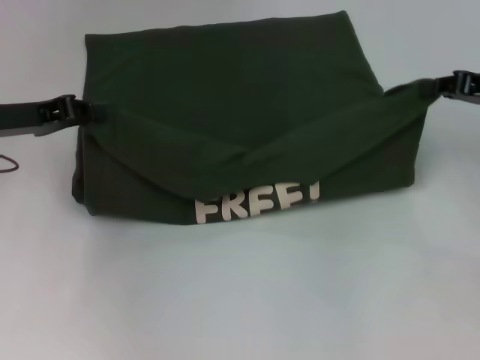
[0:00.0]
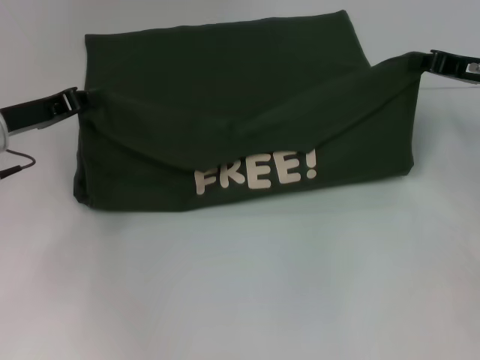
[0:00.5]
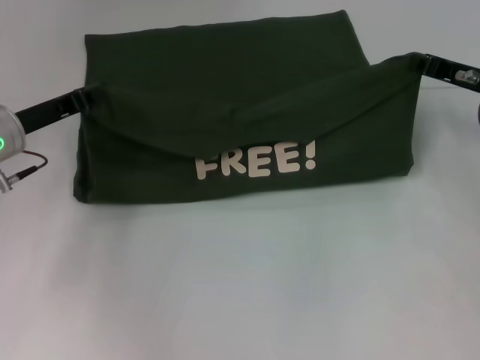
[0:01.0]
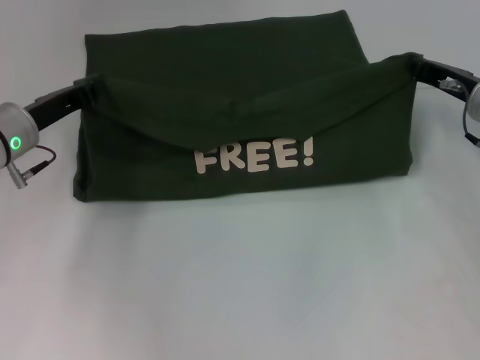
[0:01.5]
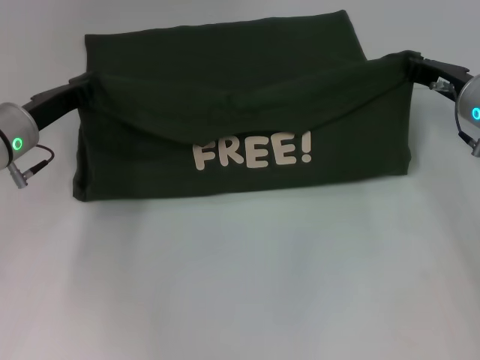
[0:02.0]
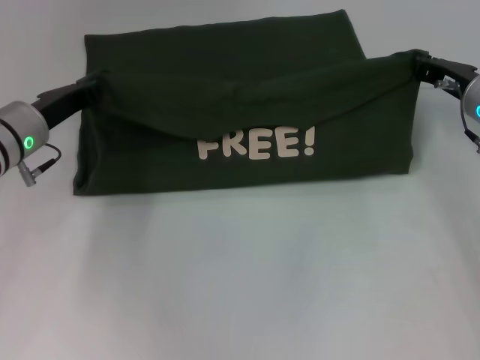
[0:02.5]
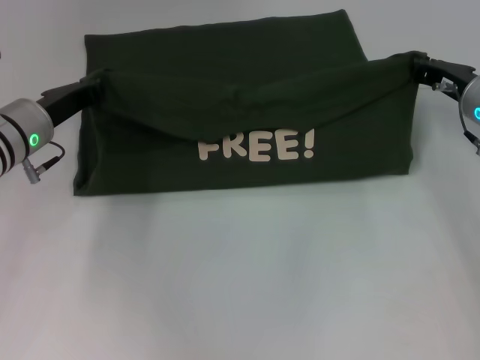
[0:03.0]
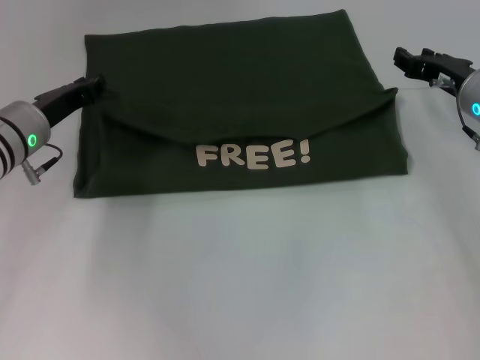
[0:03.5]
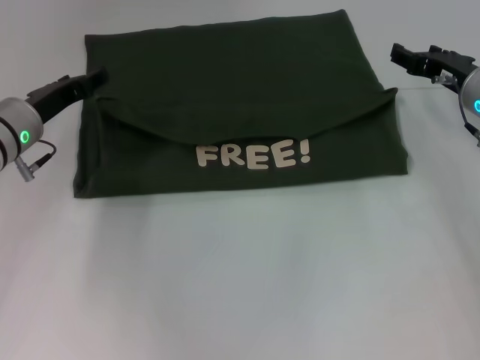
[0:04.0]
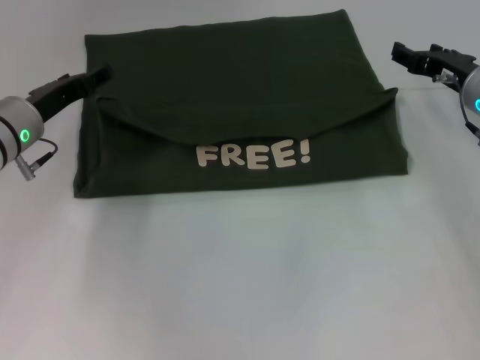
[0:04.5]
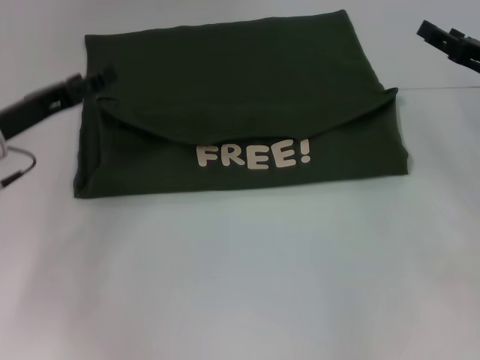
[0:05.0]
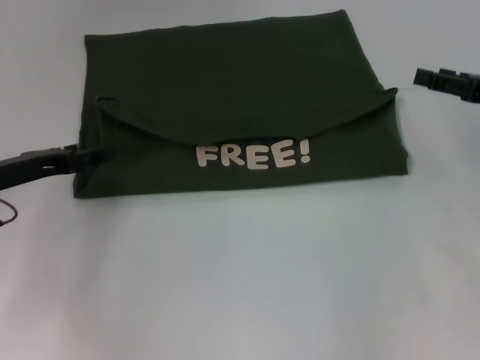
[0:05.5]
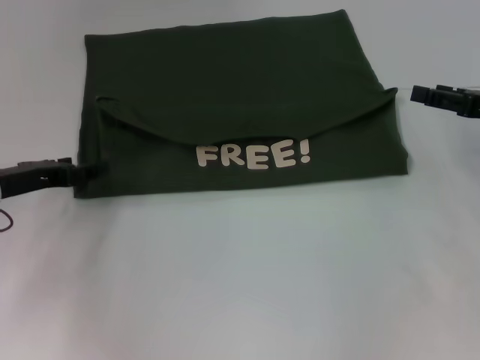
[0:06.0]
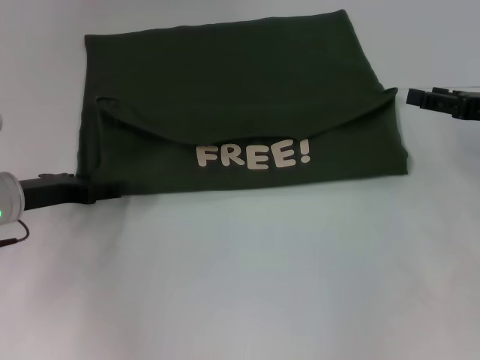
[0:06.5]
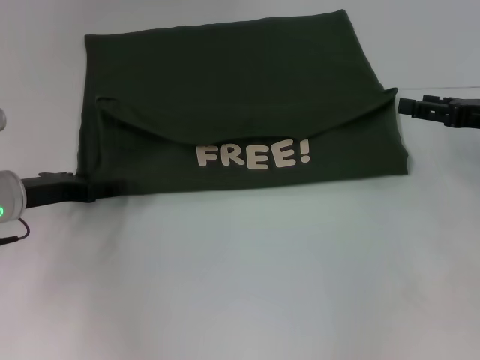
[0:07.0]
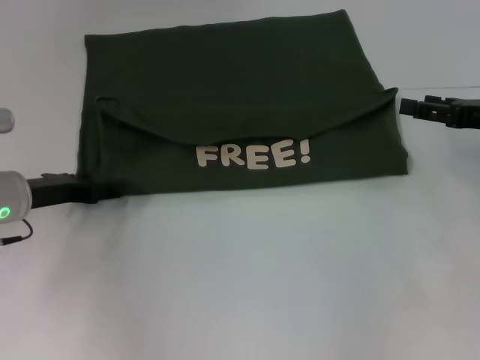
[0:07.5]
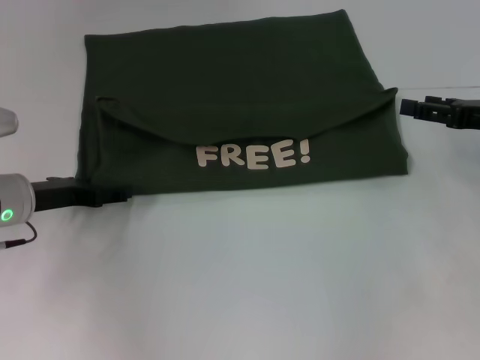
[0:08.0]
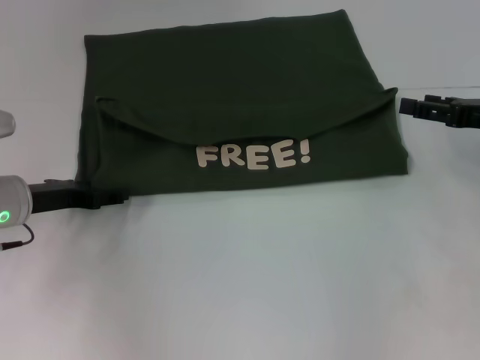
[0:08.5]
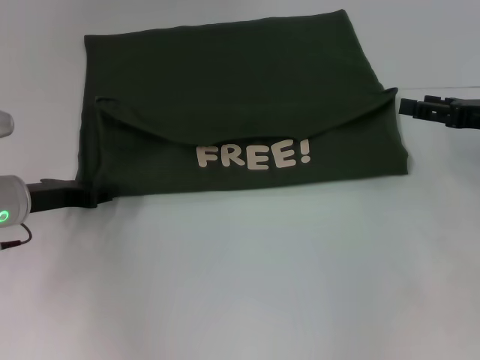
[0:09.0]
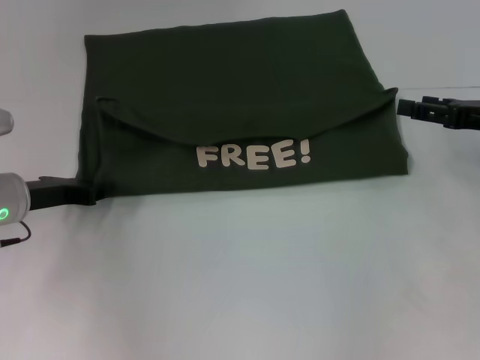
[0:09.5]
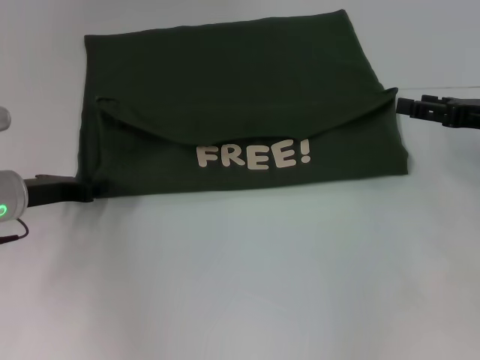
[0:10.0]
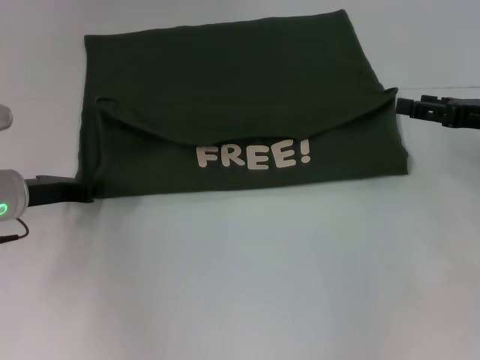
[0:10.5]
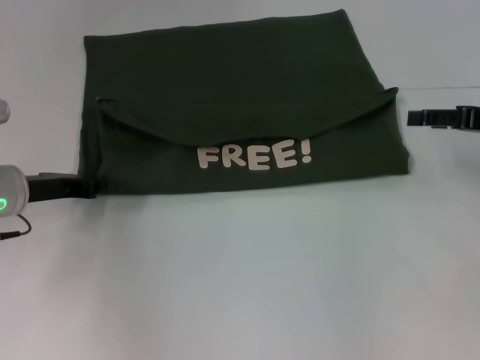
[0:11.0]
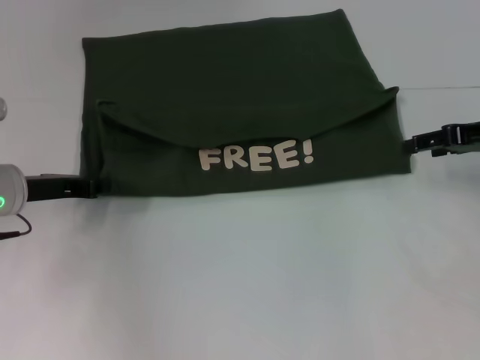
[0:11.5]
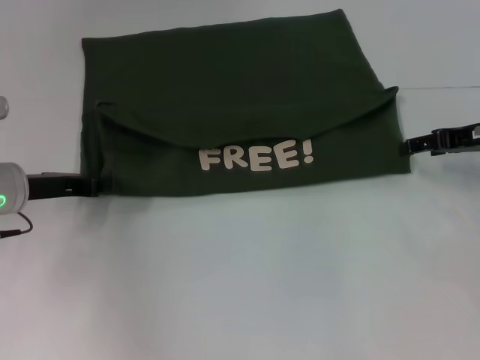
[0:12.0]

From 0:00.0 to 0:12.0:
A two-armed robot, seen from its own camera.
Step, from 0:00.0 to 0:03.5: Fold the clothes with your left hand.
Step, from 0:00.0 to 0:03.5: Fold the clothes with your right hand.
From 0:00.0 to 0:02.0: The left gripper is displaced downward by roughly 5 cm. Meanwhile the right gripper is displaced downward and to the left by about 10 cm.
From 0:02.0 to 0:04.0: The left gripper opens up; the right gripper opens its fingers.
From 0:04.0 to 0:06.0: The right gripper moves to the right and backward, roughly 10 cm, while the left gripper goes roughly 5 cm backward.
From 0:06.0 to 0:08.0: The grippers stay close to where they were, moving slightly.
From 0:08.0 to 0:10.0: The left gripper closes up.

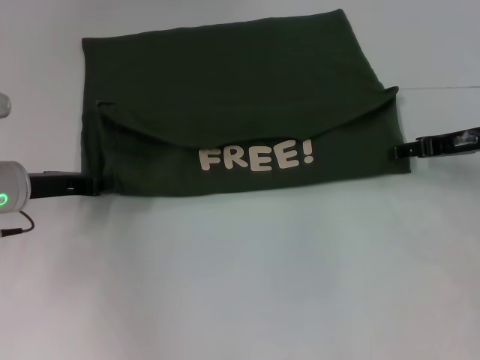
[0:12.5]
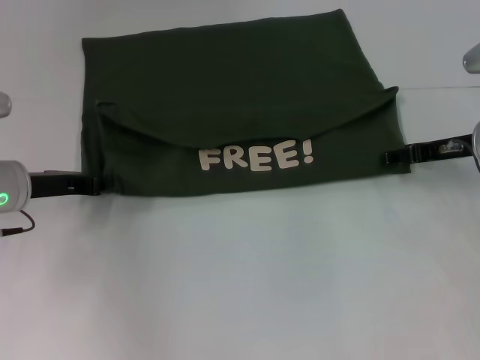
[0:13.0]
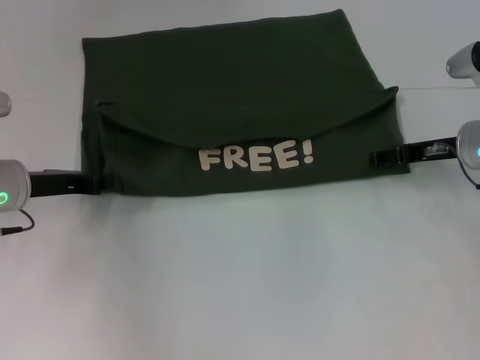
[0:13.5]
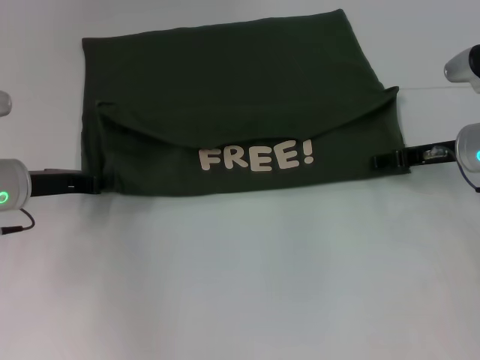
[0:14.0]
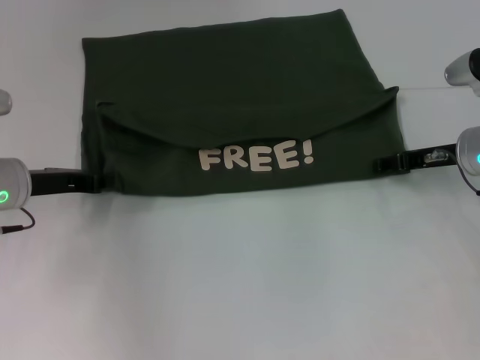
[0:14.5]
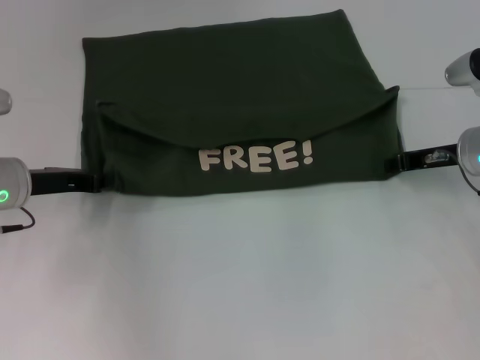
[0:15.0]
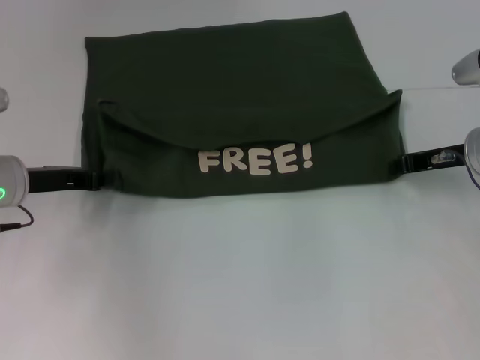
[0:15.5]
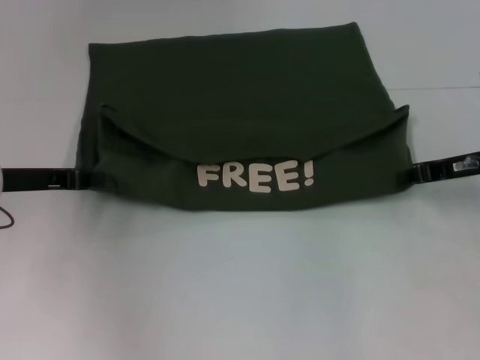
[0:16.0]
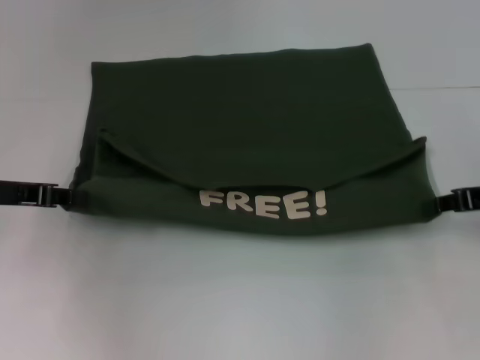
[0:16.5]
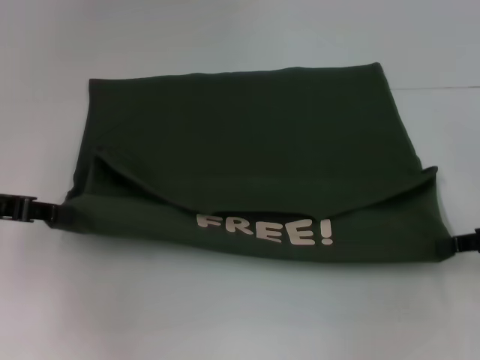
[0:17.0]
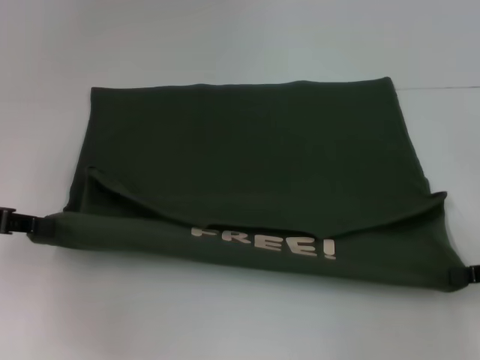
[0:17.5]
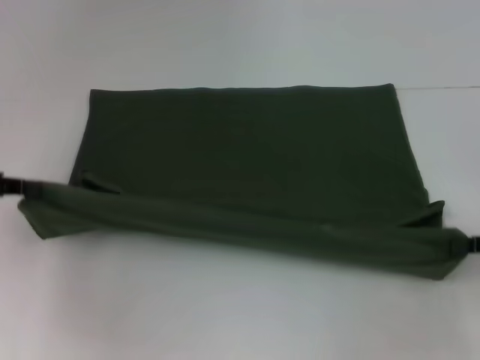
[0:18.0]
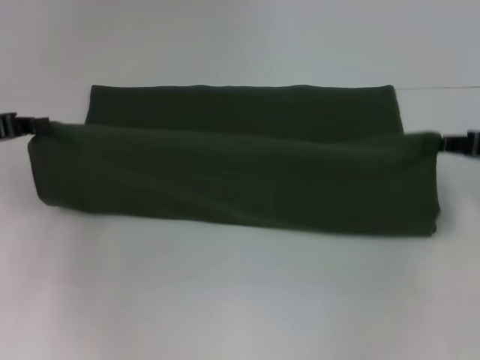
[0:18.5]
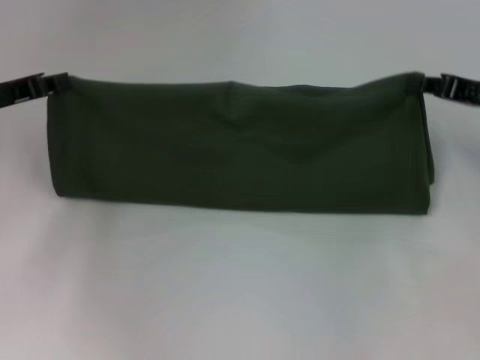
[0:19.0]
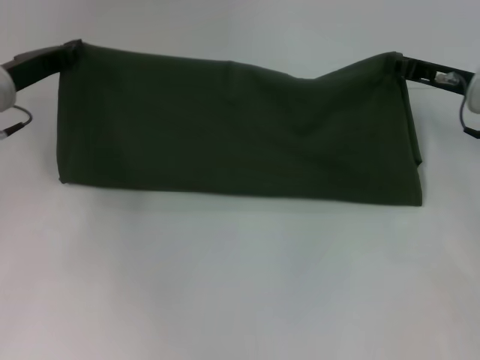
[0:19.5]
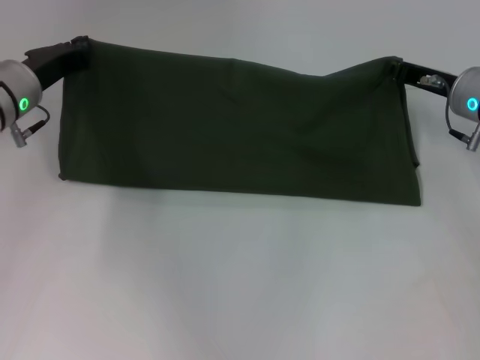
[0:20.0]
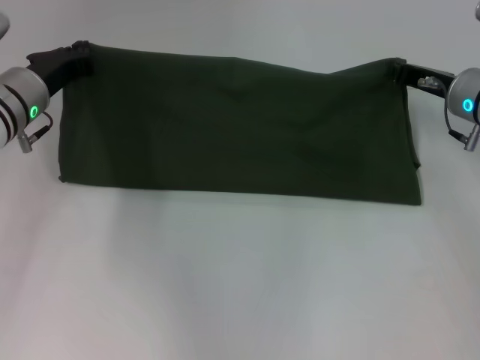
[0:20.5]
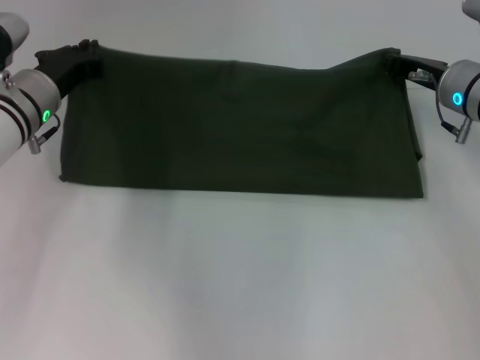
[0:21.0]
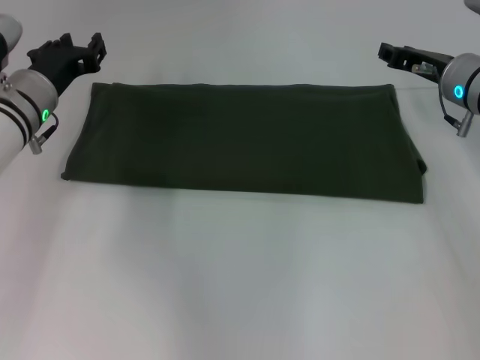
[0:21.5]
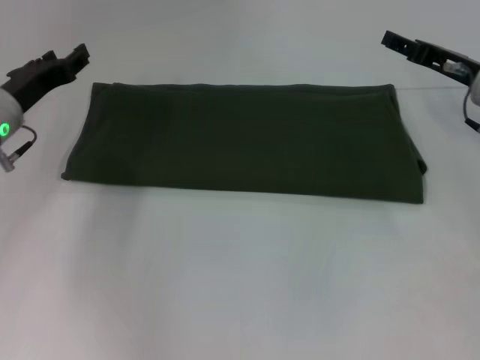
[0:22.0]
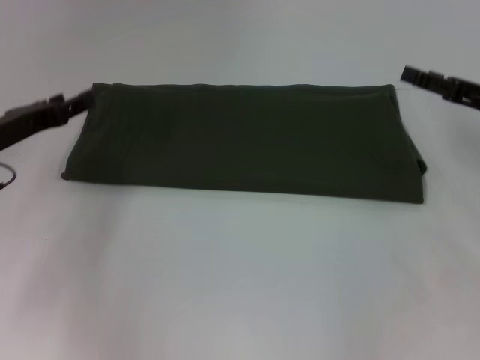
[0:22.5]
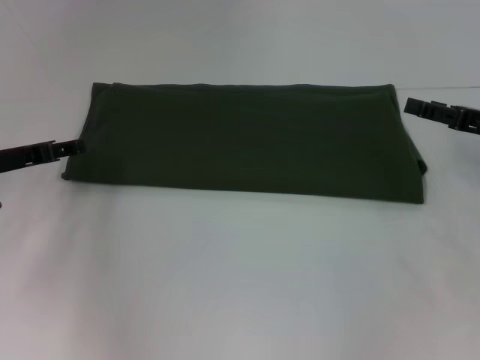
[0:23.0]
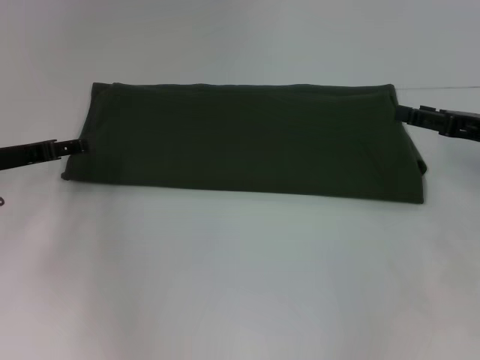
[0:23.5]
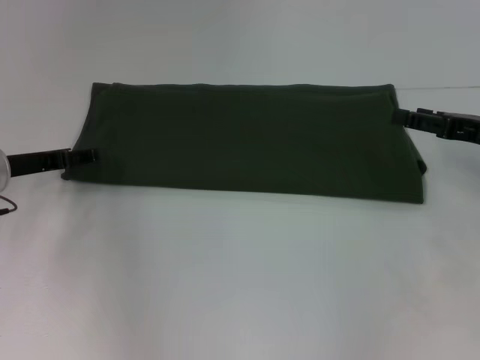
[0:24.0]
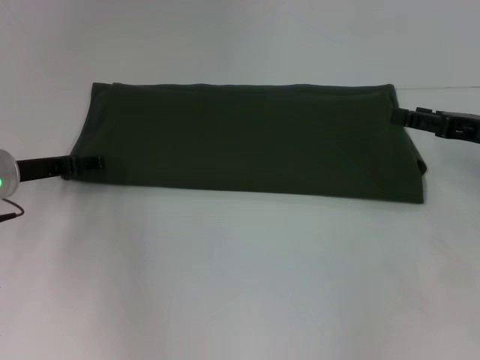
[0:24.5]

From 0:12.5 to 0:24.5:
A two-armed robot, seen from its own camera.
Step, from 0:12.5 to 0:17.0: Pull the clothes with your left hand.
Step, from 0:12.5 to 0:17.0: Pull the clothes with your right hand.
Step, from 0:17.5 to 0:21.0: Fold the clothes with your left hand.
Step, from 0:17.5 to 0:21.0: Fold the clothes with your right hand.
From 0:12.5 to 0:14.5: There are only small adjustments of the grippers.
From 0:14.5 to 0:16.5: The right gripper heads backward and to the right, covering roughly 10 cm, and closes. Meanwhile the left gripper changes place by roughly 5 cm.
From 0:16.5 to 0:18.5: The right gripper travels backward and back again, some 10 cm each way.
From 0:18.5 to 0:20.5: The right gripper heads forward and to the left, covering roughly 15 cm; the left gripper shifts some 15 cm to the right and forward.
From 0:20.5 to 0:22.5: The left gripper shifts about 10 cm backward and to the left, and opens its fingers. Meanwhile the right gripper travels to the right and backward by some 10 cm, and opens its fingers.

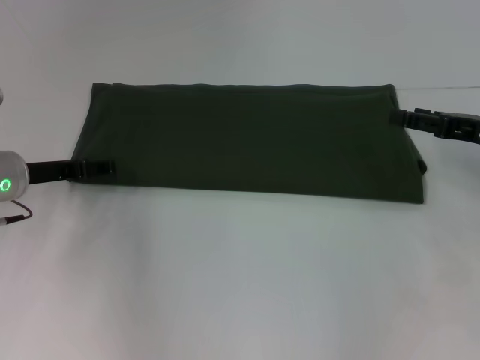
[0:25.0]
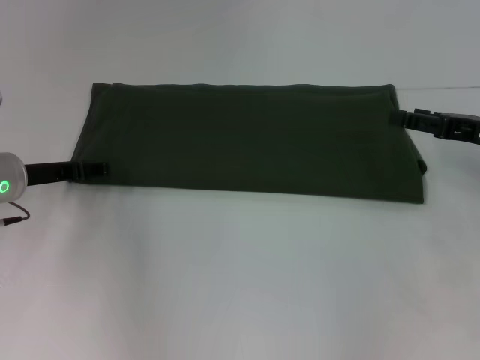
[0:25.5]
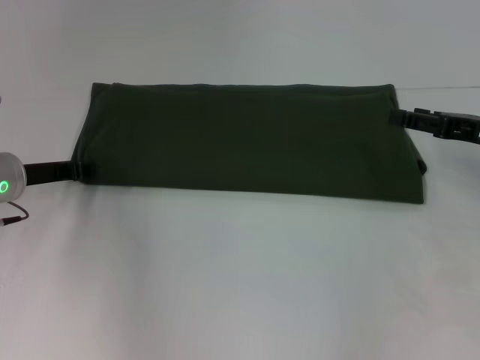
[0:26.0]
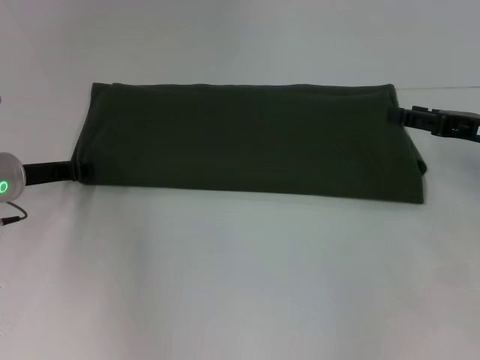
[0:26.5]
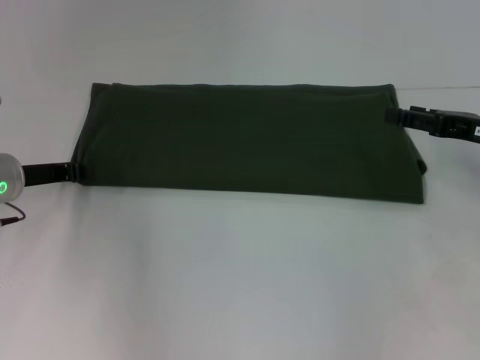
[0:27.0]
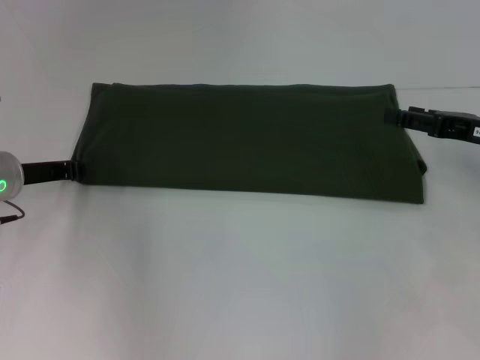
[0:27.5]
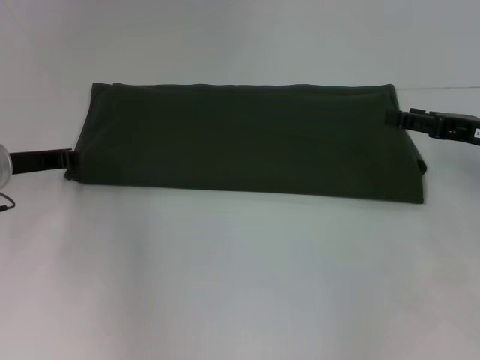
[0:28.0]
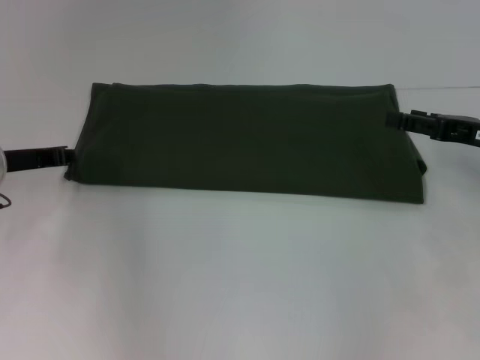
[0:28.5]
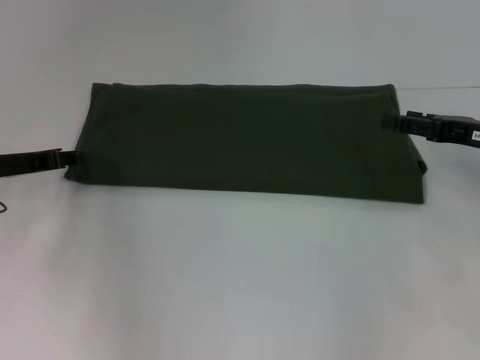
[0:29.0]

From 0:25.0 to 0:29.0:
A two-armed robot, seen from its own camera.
From 0:27.0 to 0:29.0: The grippers make only small movements.
